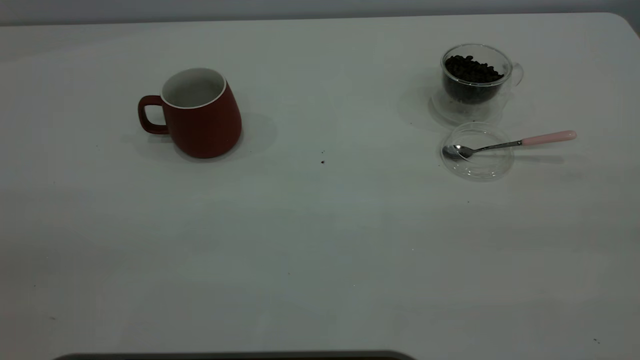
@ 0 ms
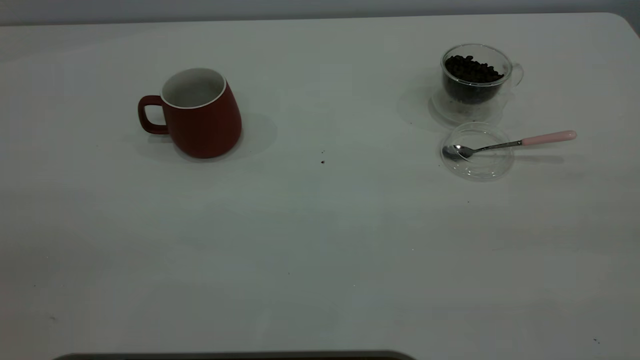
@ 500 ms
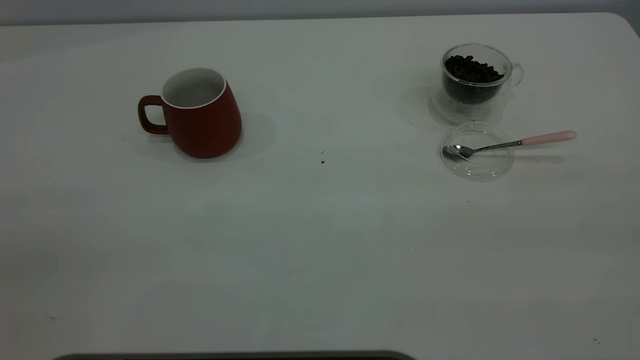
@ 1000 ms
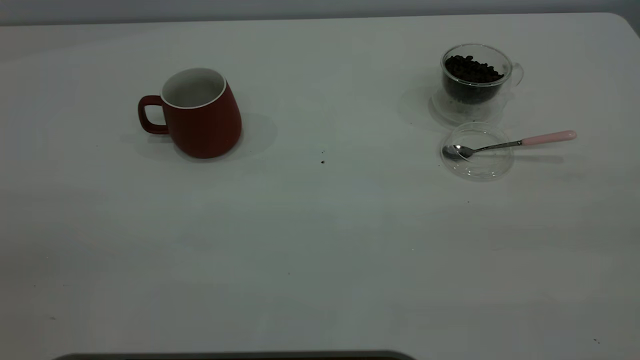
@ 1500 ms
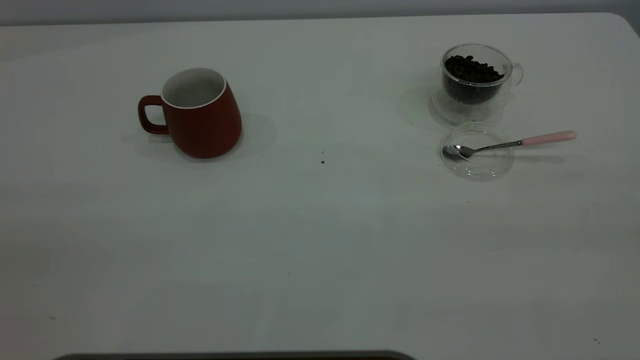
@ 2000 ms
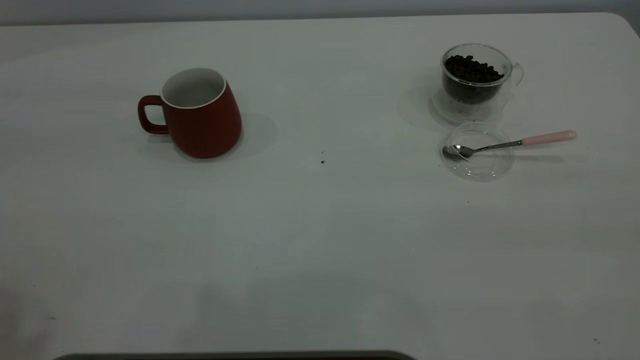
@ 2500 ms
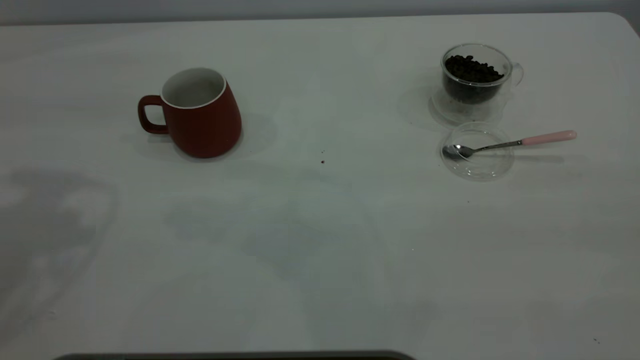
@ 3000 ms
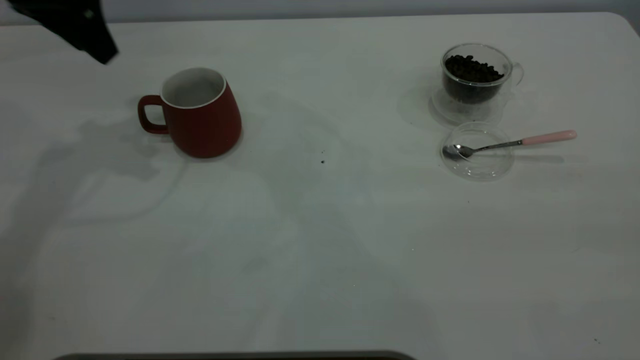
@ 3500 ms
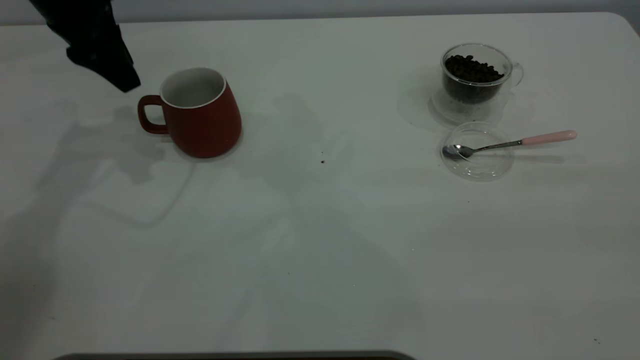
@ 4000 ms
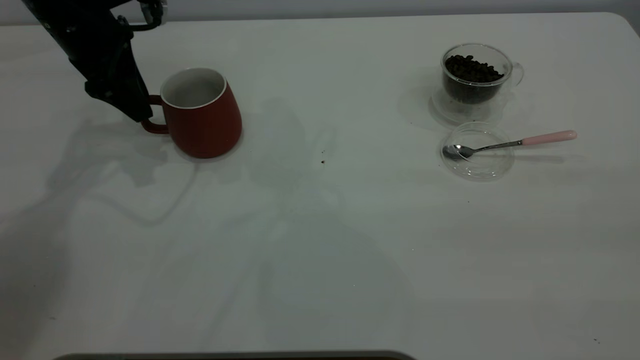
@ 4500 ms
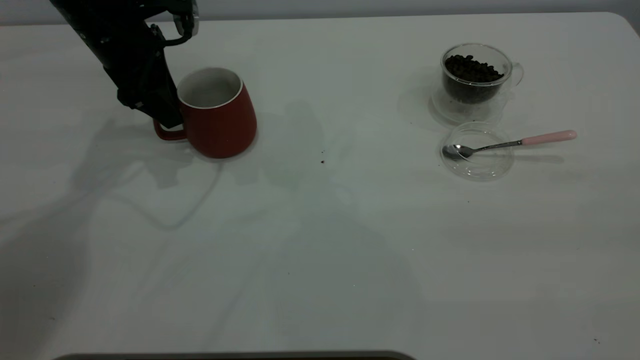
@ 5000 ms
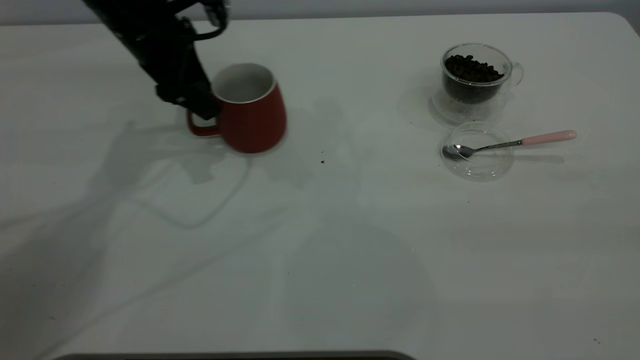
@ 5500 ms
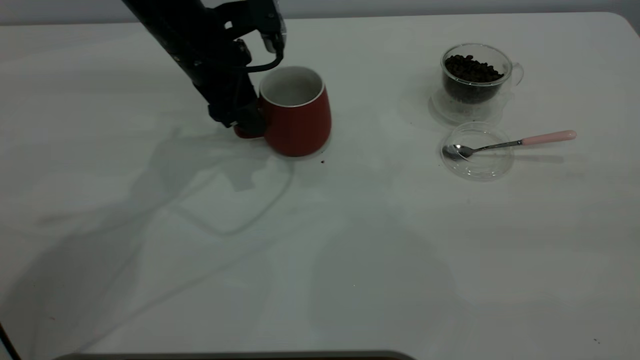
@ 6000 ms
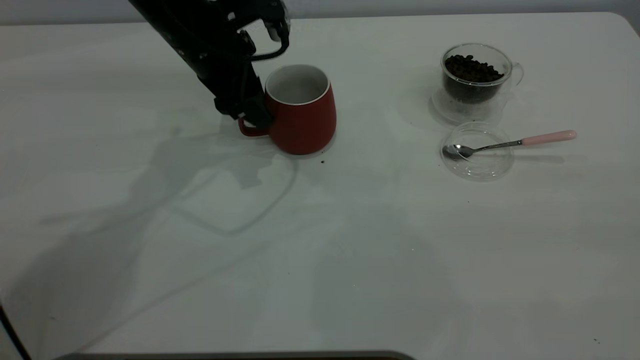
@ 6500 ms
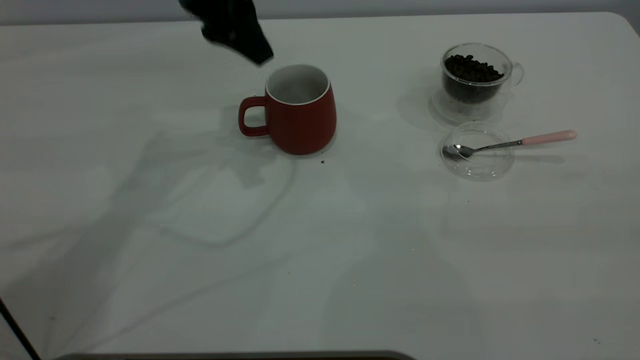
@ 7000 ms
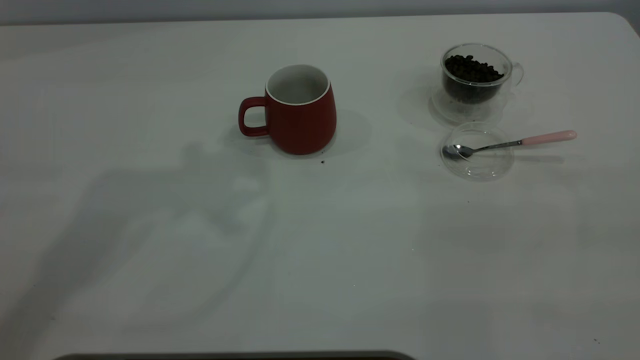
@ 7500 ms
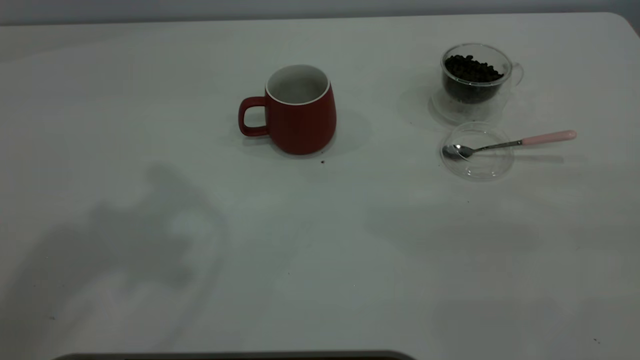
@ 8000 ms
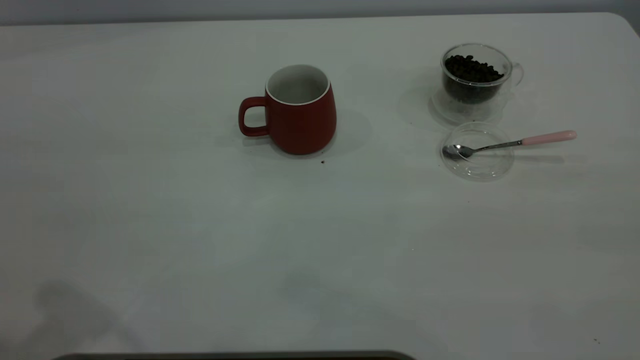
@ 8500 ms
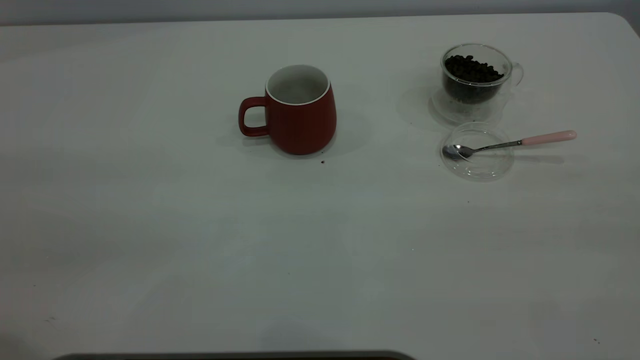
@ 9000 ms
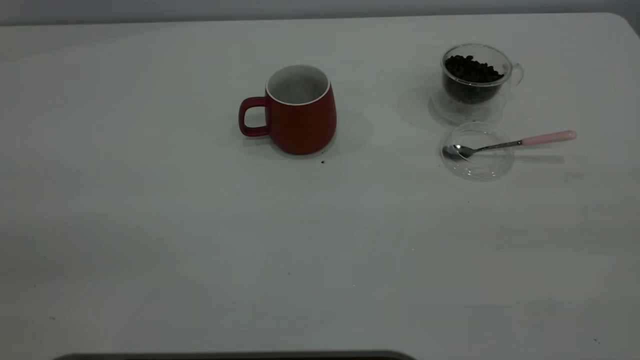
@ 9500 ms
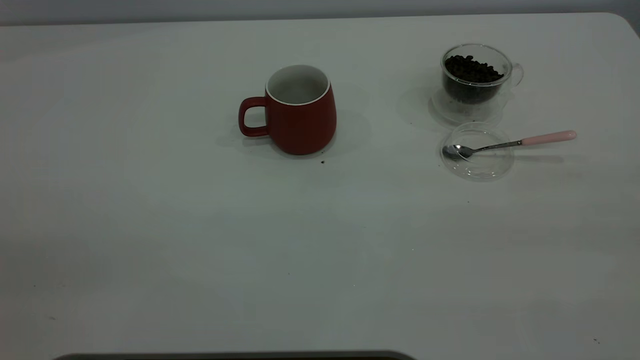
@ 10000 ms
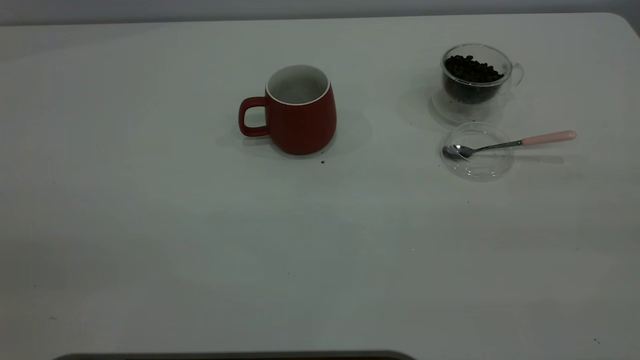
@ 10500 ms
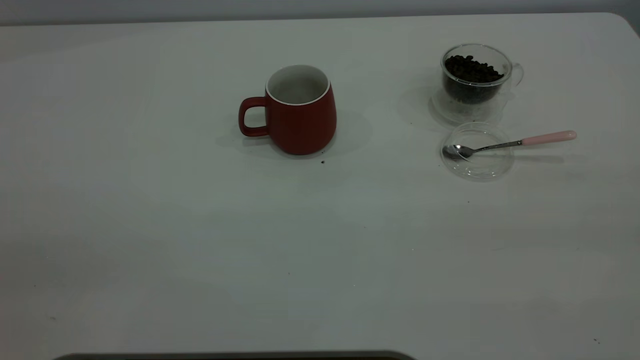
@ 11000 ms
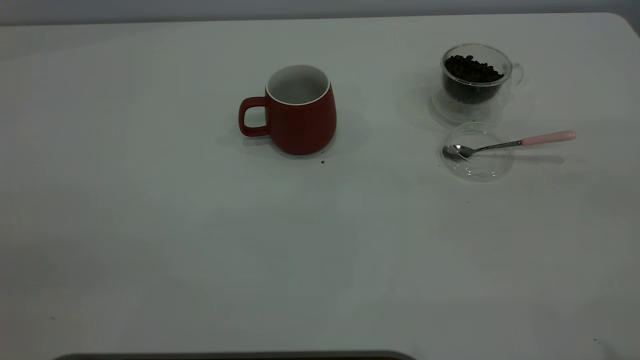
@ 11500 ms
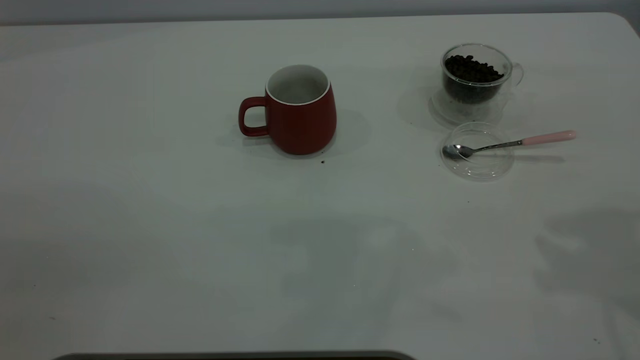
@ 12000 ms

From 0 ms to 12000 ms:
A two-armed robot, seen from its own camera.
Task of the whole recording: the left gripper place the red cup in the center of the table, the right gripper take the pink spoon from the cup lid and scoop out the coffee beans from the coffee cup and put them into the red cup, the right gripper put the spoon back into the cup lid.
Step, from 0 ms to 6500 ms: Move the cup to the center of view.
From 0 ms to 2000 ms: Neither gripper changes place.
From 2000 ms to 4000 ms: The left gripper travels forward by approximately 40 cm.
From 4000 ms to 6000 ms: The left gripper is displaced to the right and downward by roughly 15 cm.
From 6000 ms to 8000 ms: The left gripper travels upward and backward by about 35 cm.

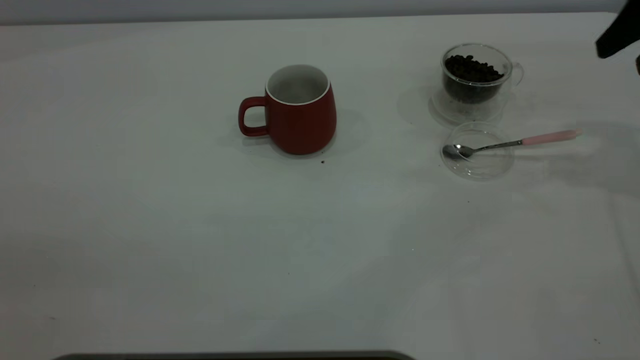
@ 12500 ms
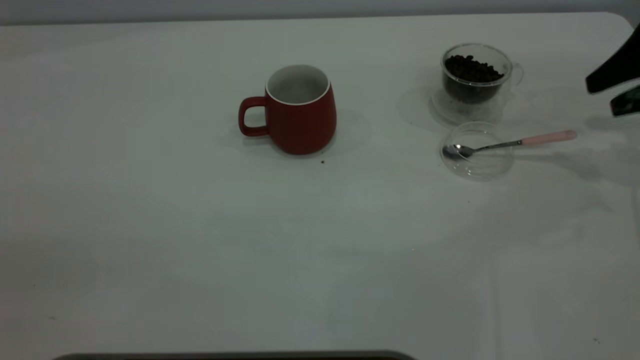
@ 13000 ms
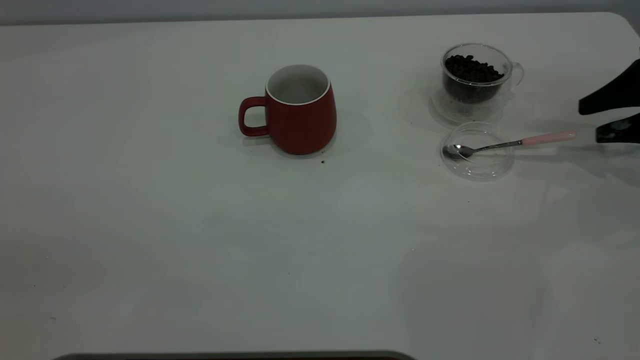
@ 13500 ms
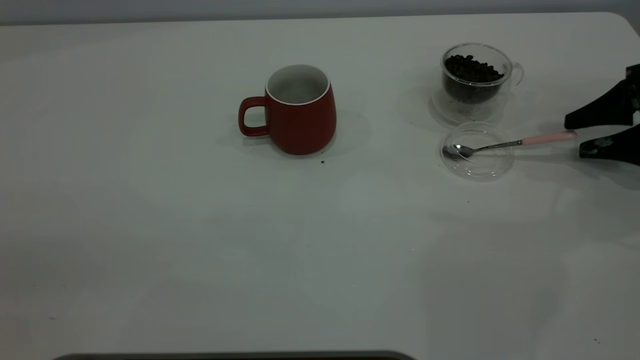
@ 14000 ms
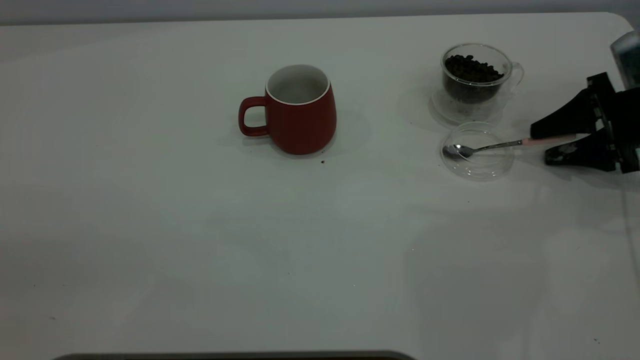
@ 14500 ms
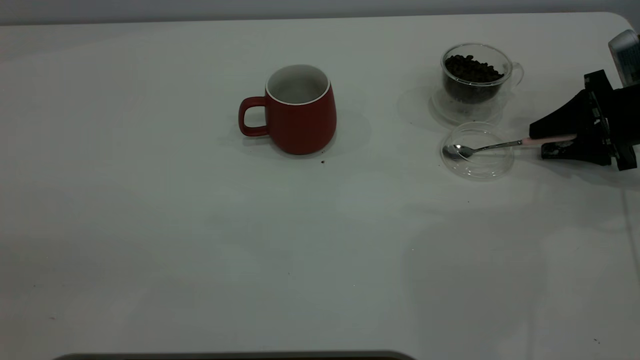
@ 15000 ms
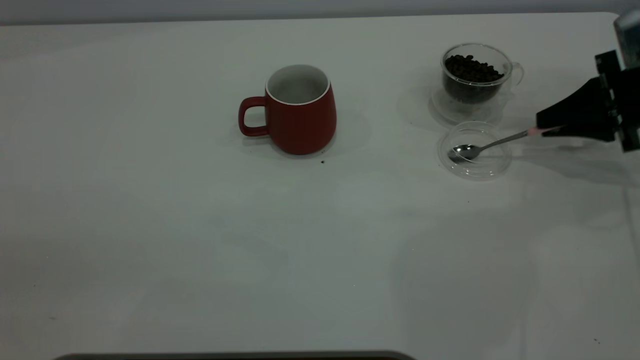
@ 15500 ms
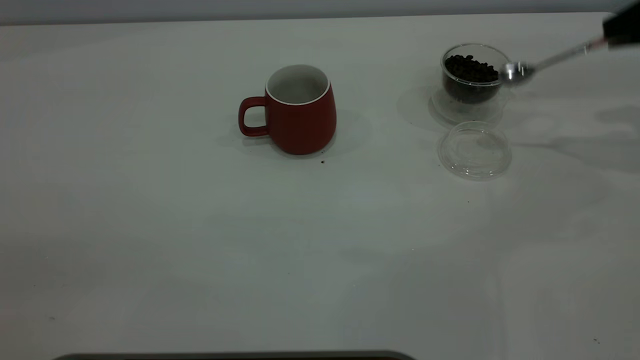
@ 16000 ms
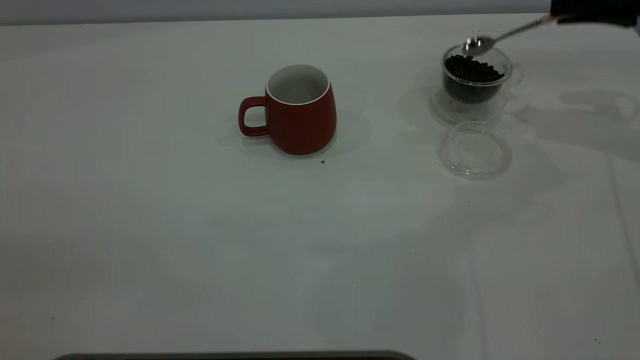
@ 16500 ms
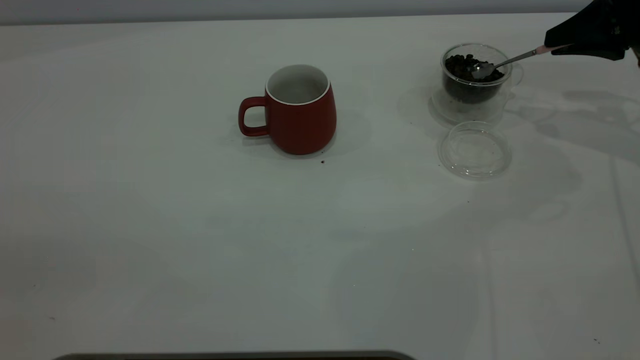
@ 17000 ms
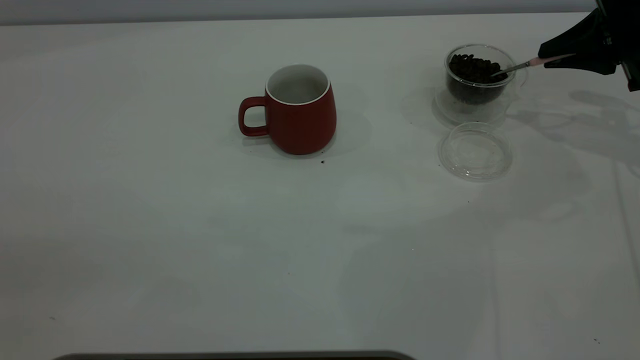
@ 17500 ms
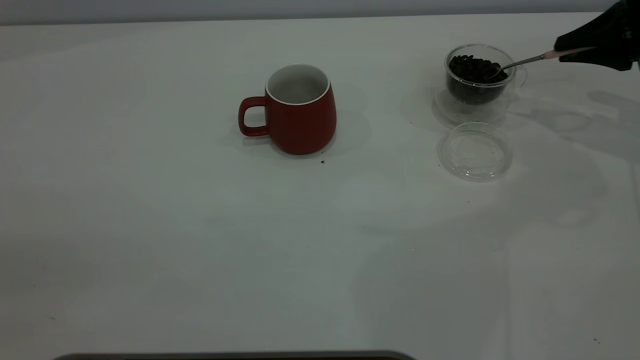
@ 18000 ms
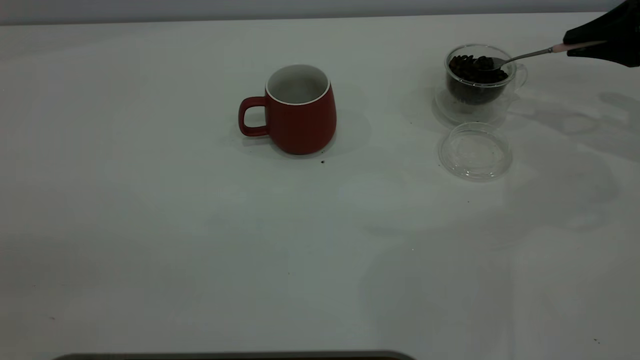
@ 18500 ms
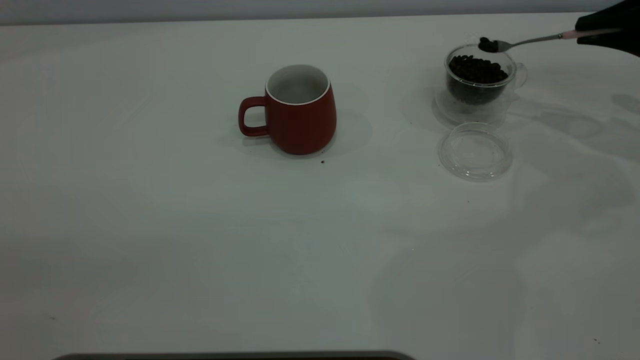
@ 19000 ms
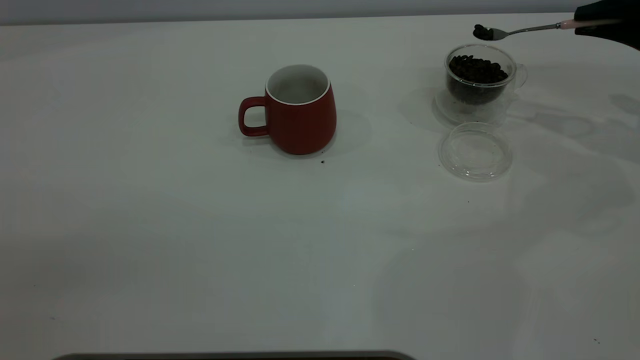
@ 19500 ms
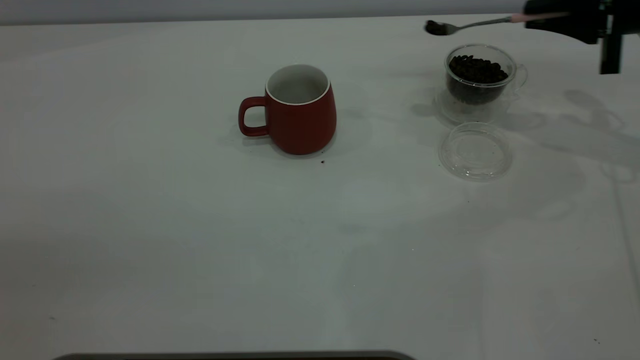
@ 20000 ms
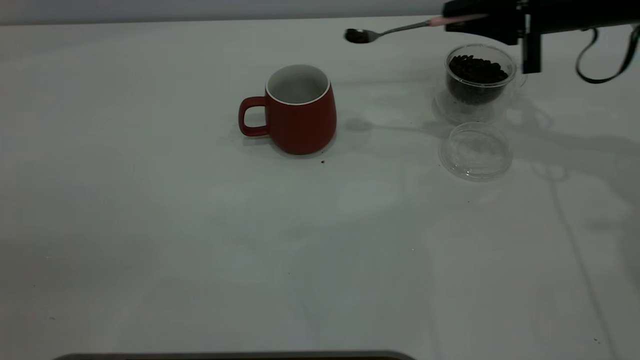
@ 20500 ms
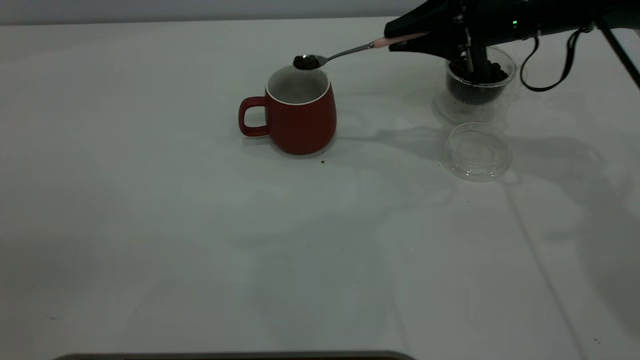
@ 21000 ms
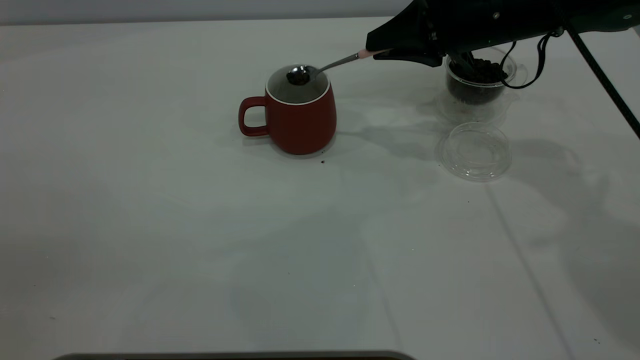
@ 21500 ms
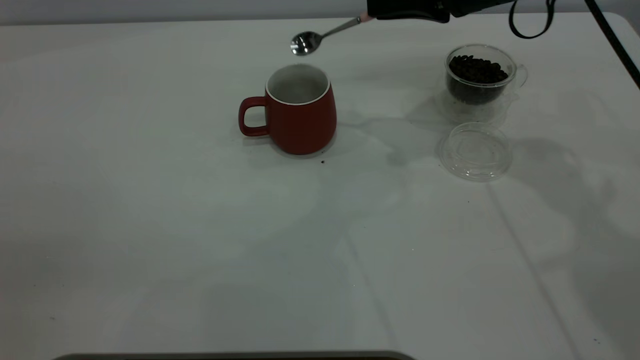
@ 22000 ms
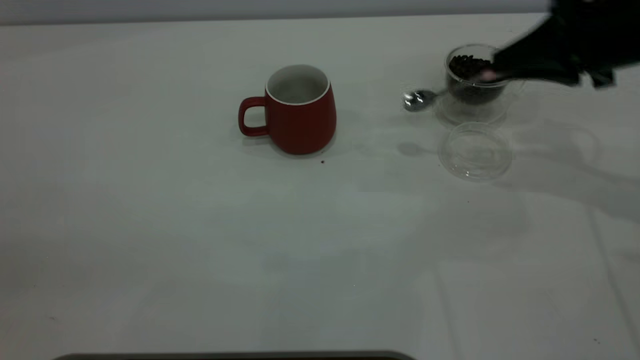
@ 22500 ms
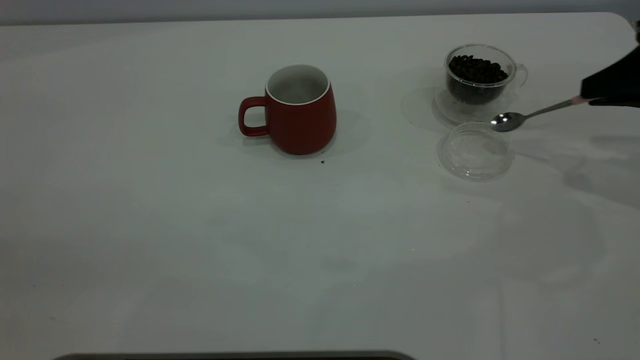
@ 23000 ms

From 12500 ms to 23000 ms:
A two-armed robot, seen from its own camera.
Task of the whole recording: the left gripper place the red cup in the center of the table, the right gripper take the pink spoon from the cup lid and scoop out the coffee beans from the coffee cup and put them into the red cup, the right gripper put the spoon back into the cup lid.
Step, from 12500 ms to 15500 ms: Pick up the spoon.
Step, from 16000 ms to 21500 ms: Scoop a spoonful of beans into the cup.
From 12500 ms to 14500 ms: The right gripper goes approximately 15 cm downward.
From 14500 ms to 16500 ms: The right gripper goes about 15 cm upward, and closes its fingers.
From 19000 ms to 21000 ms: The right gripper travels to the left by some 20 cm.
From 21000 ms to 23000 ms: The right gripper moves to the right and backward, about 20 cm.
